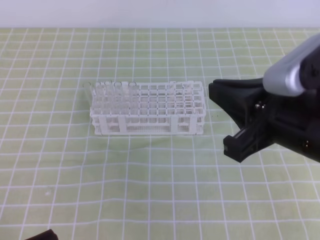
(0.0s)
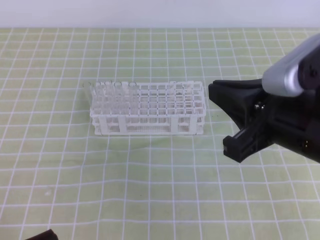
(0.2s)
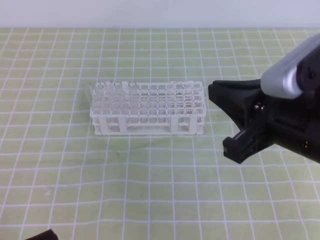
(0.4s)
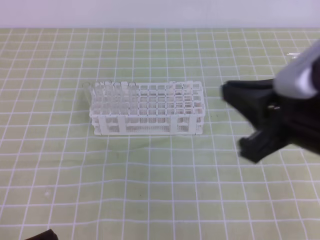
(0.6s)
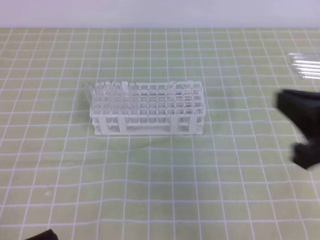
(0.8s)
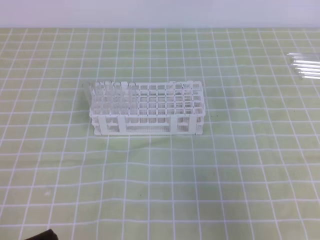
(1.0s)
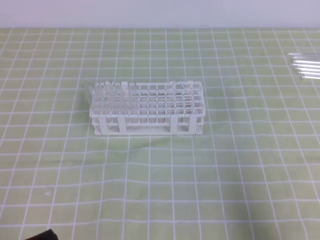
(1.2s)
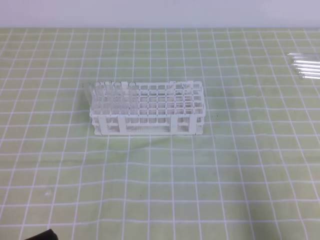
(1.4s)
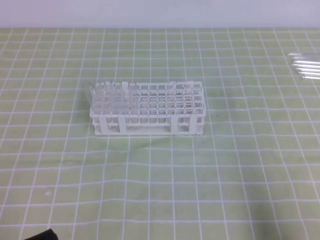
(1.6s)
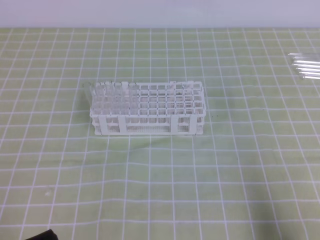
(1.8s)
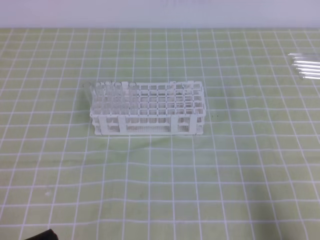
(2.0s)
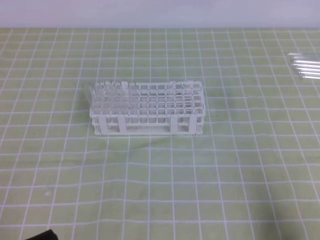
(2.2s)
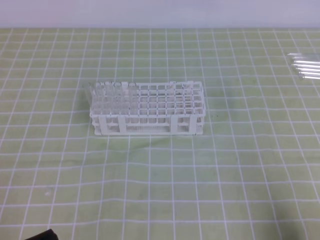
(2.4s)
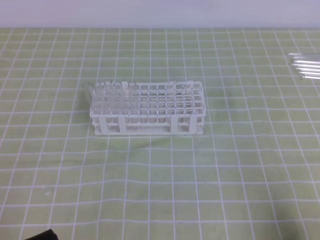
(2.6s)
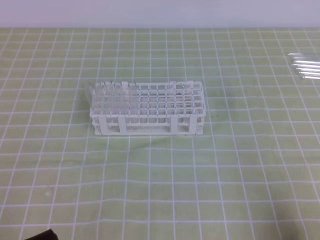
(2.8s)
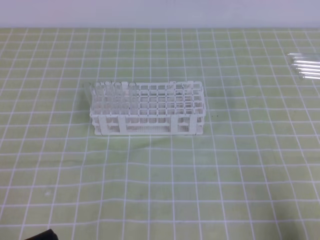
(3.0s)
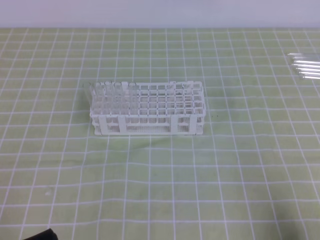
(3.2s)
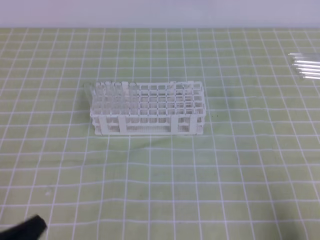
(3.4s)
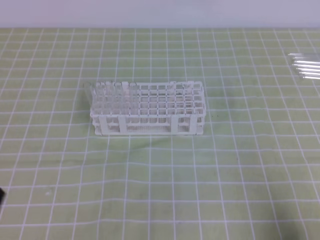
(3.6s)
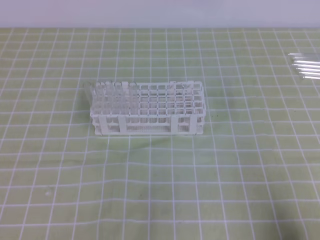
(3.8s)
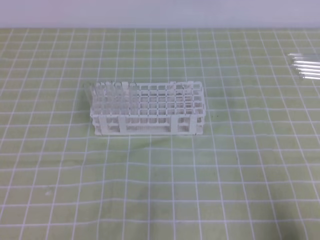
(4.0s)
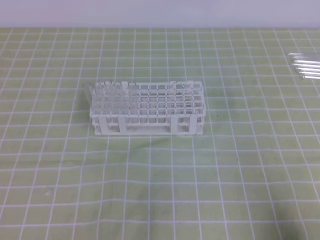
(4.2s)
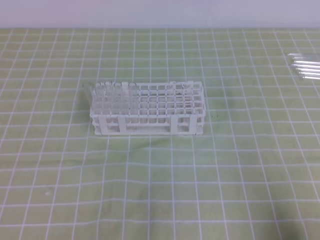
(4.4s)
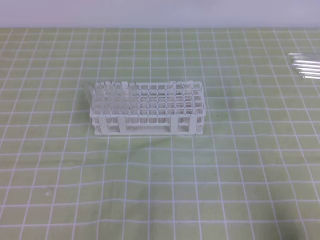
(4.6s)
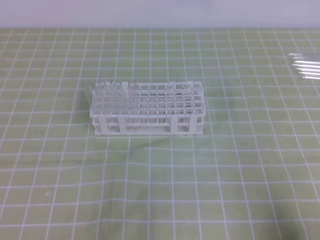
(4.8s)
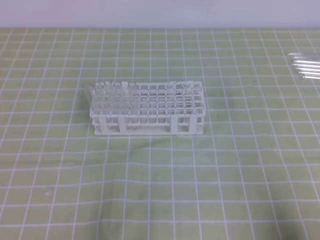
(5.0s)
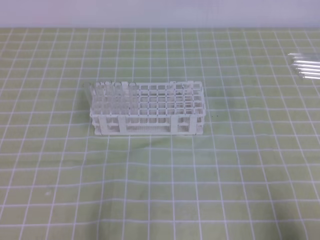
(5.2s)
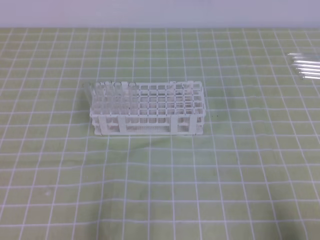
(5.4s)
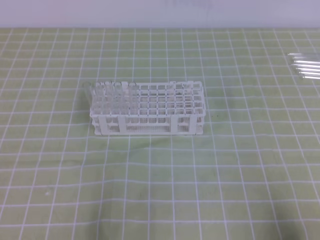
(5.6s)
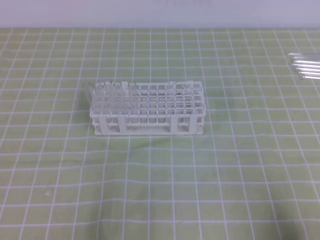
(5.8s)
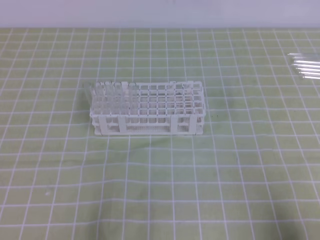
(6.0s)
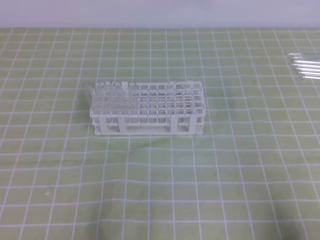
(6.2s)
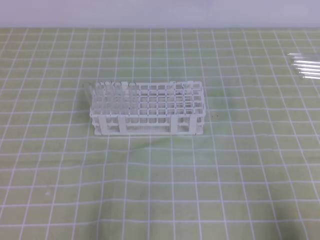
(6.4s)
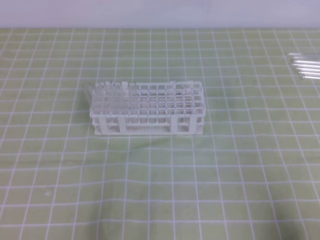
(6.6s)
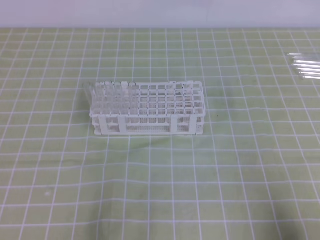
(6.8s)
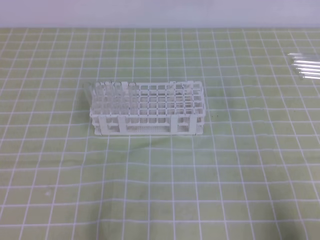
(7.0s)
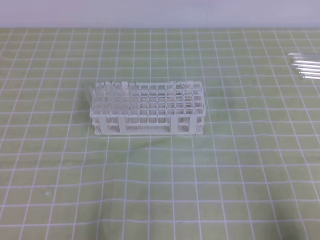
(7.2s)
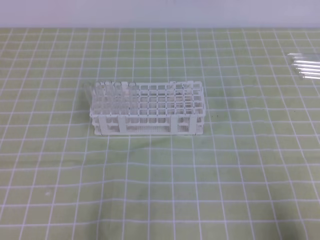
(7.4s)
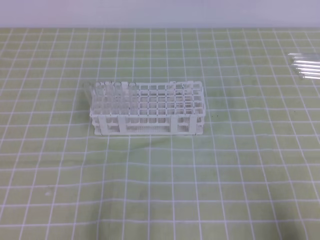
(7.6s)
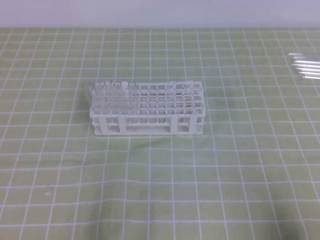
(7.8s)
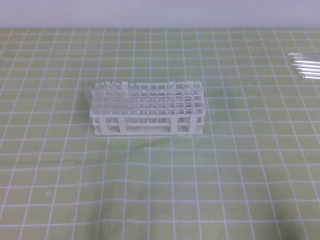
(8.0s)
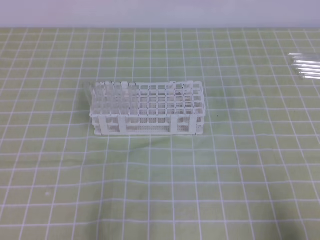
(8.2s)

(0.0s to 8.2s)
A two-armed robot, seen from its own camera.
0.0s - 1.6s: The right gripper heads to the right, downward and backward, covering some 25 cm.
6.6s - 8.2s: The two grippers keep their place.

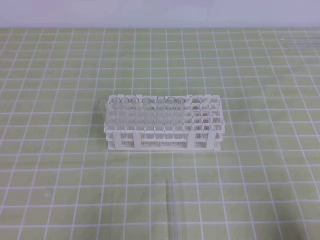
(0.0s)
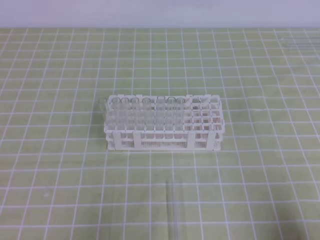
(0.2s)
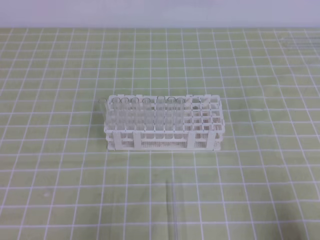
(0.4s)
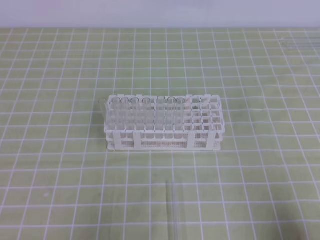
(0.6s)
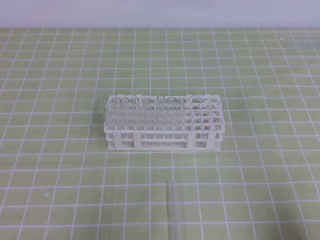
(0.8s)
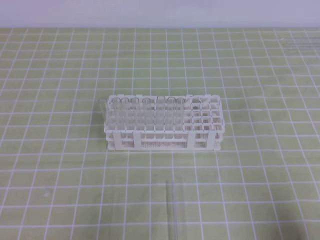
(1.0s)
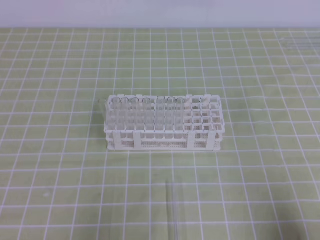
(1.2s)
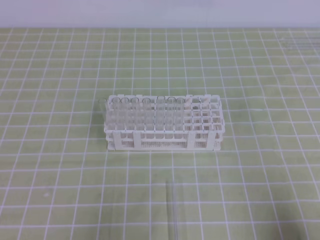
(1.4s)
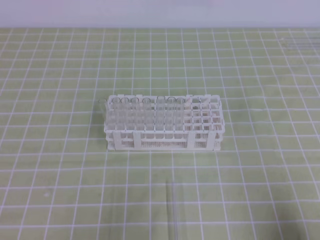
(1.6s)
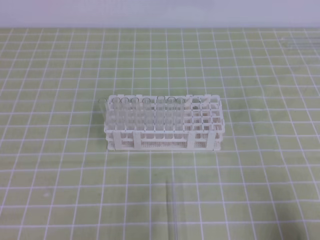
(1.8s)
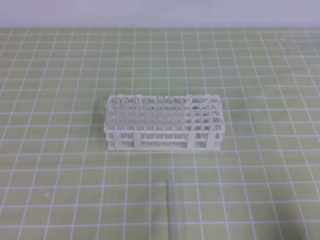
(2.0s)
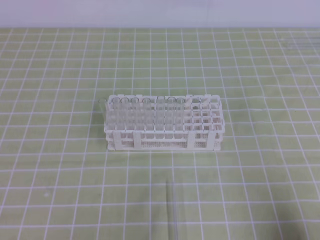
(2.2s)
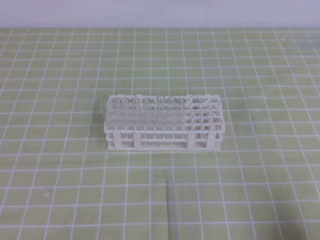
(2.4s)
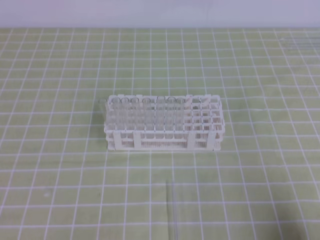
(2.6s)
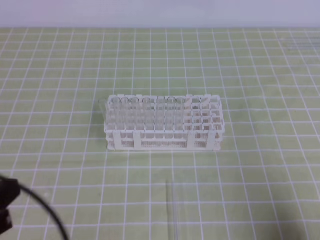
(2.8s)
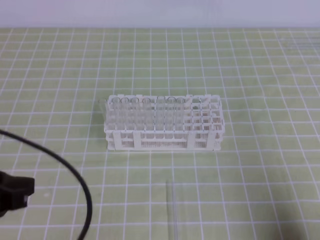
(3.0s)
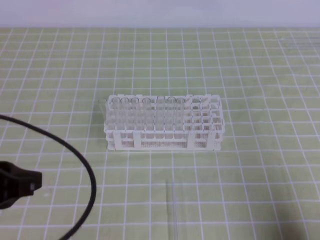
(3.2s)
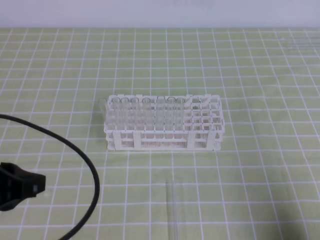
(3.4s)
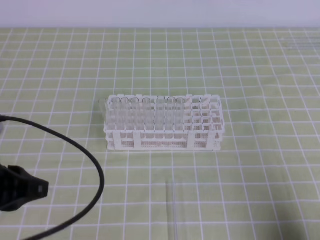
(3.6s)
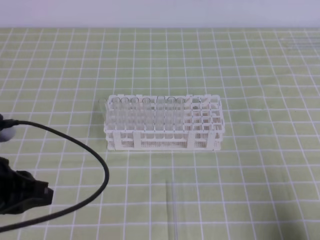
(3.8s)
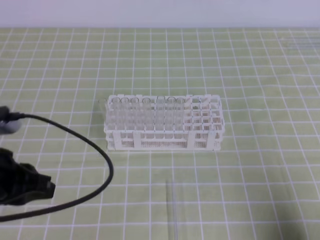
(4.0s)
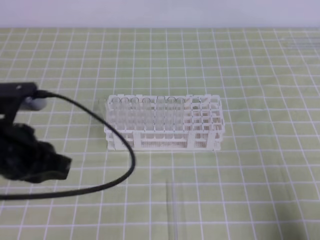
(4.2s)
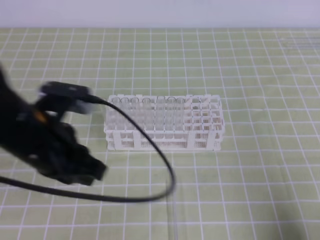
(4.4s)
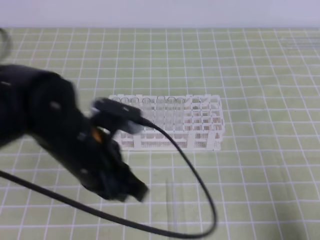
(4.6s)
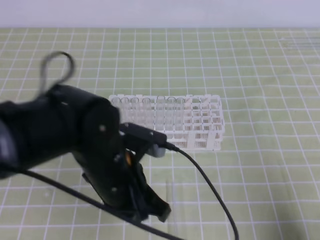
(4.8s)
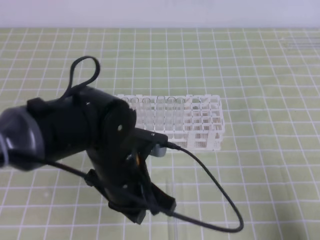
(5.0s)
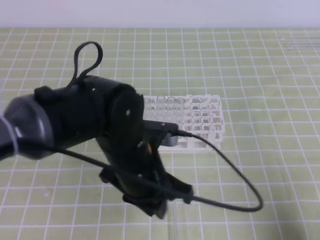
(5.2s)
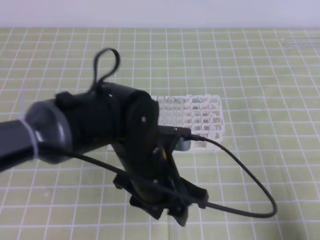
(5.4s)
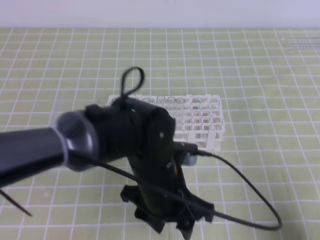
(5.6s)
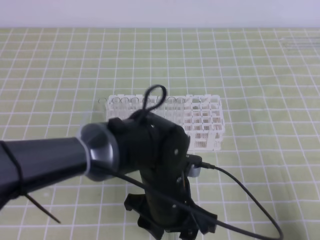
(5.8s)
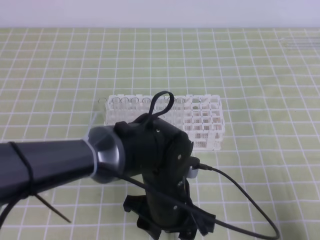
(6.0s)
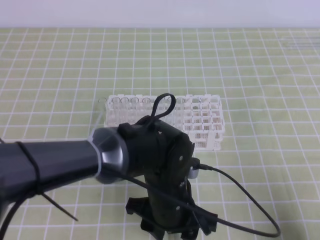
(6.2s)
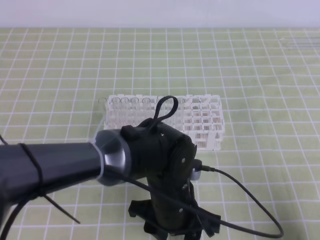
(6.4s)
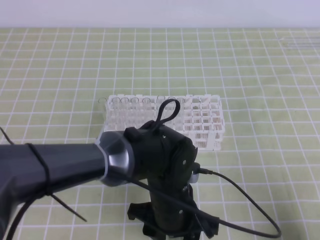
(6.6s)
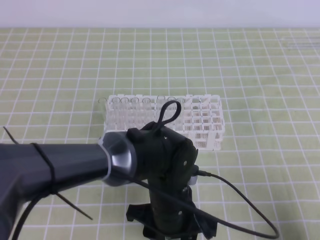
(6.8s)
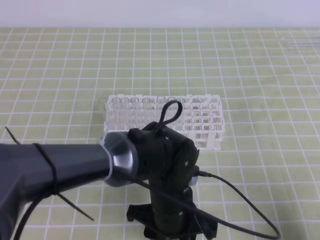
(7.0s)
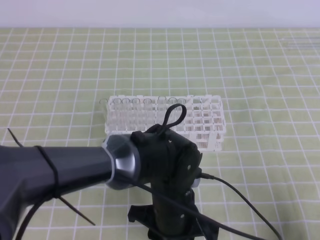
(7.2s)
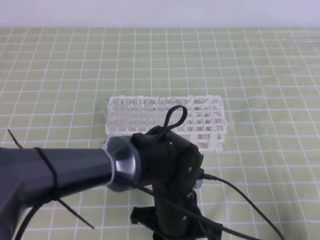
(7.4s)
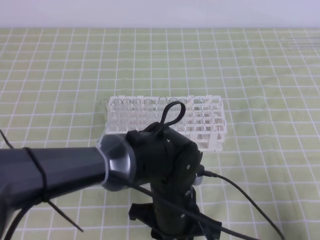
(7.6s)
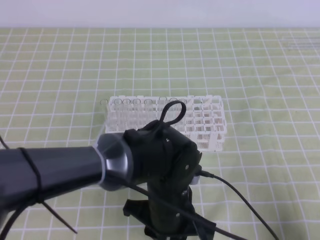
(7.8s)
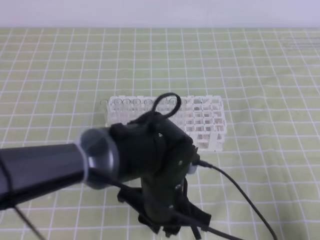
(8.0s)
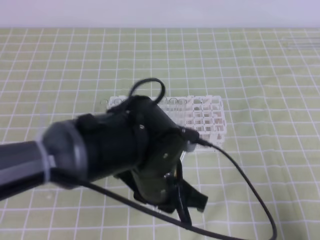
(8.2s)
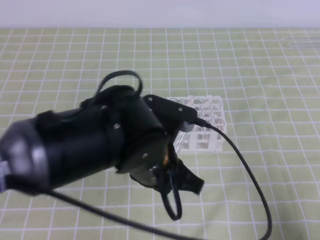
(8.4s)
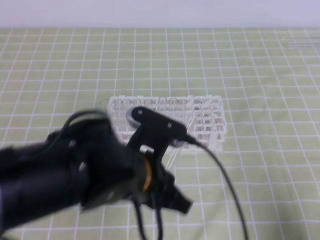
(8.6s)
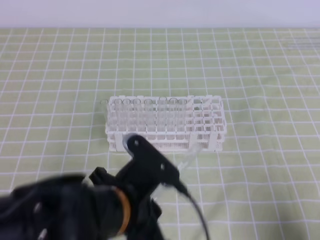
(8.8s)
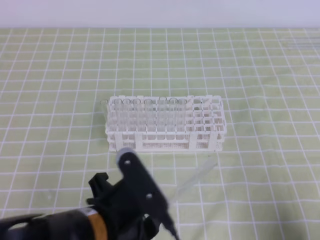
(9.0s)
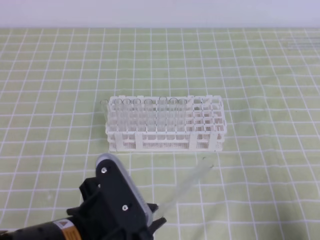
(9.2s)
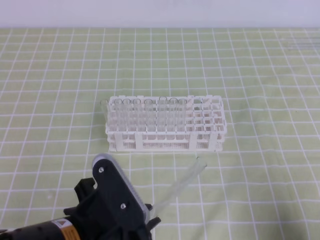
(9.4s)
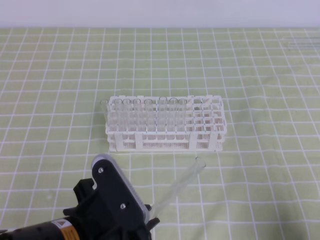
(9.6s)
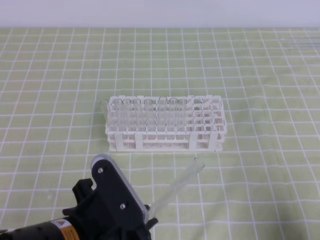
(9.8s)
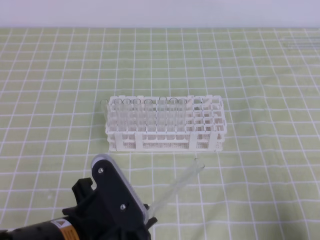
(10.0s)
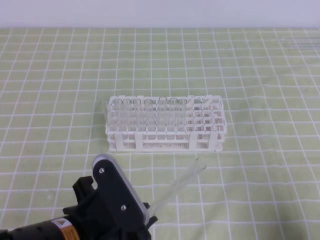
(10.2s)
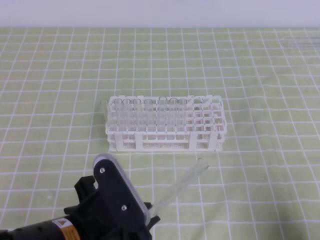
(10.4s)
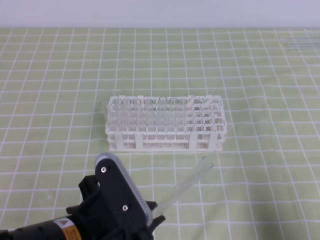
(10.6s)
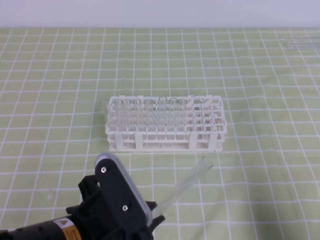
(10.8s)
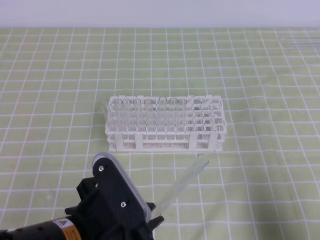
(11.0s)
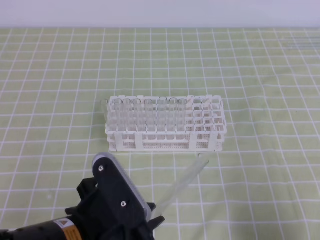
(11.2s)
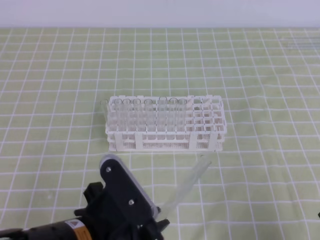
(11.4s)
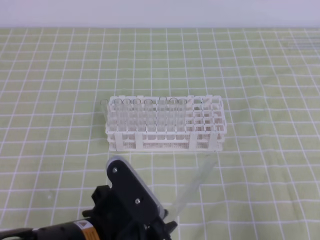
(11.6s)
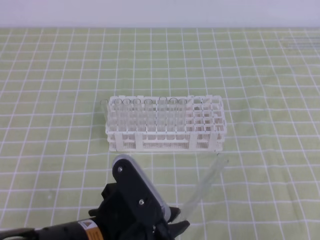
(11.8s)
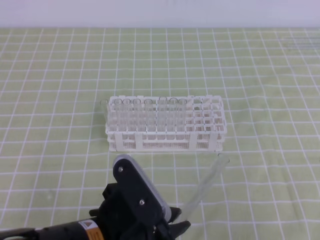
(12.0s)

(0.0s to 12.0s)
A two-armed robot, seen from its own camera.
1.6s - 3.0s: The left gripper shifts some 10 cm upward and forward.
3.0s - 4.4s: The left gripper moves forward and to the right, about 15 cm.
4.4s - 6.0s: The left gripper travels to the right and downward by roughly 20 cm, and opens.
6.0s - 7.6s: The left gripper closes its fingers.
7.6s - 9.0s: The left gripper goes approximately 15 cm to the left, upward and backward.
9.0s - 10.4s: The grippers stay close to where they were, moving slightly.
10.4s - 12.0s: The right gripper is displaced upward and to the left by some 10 cm.

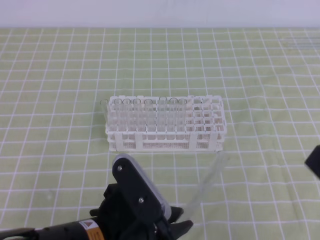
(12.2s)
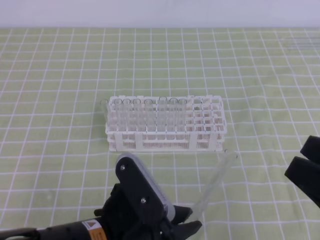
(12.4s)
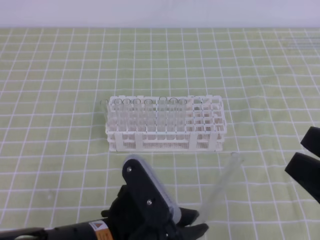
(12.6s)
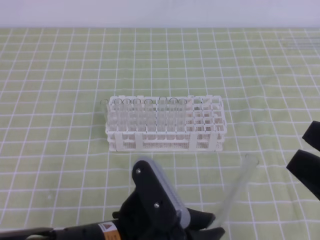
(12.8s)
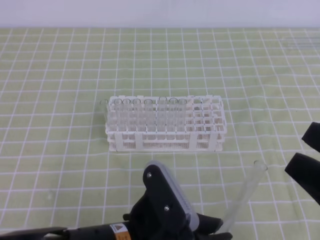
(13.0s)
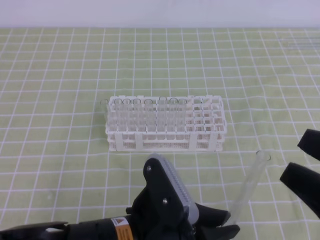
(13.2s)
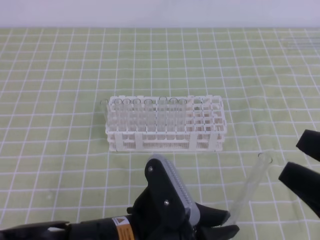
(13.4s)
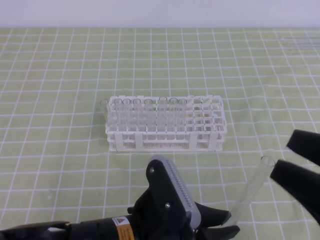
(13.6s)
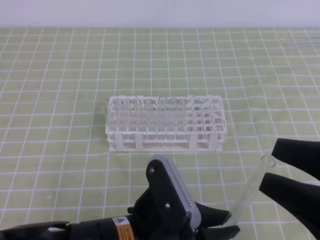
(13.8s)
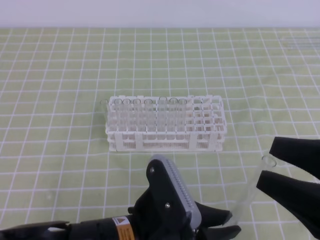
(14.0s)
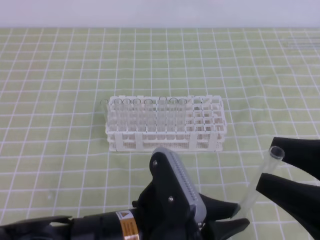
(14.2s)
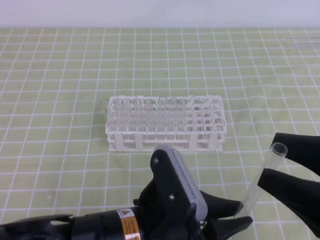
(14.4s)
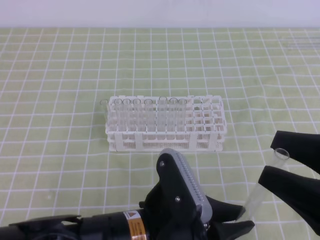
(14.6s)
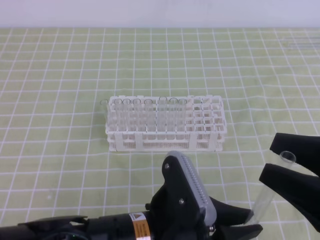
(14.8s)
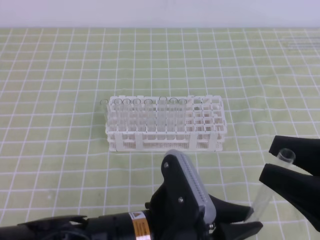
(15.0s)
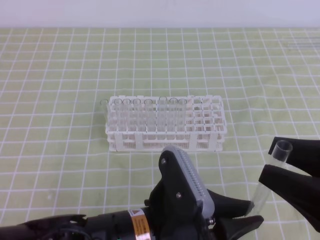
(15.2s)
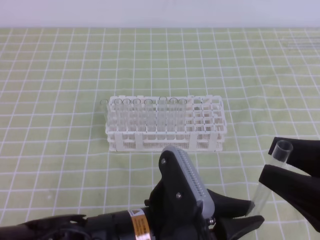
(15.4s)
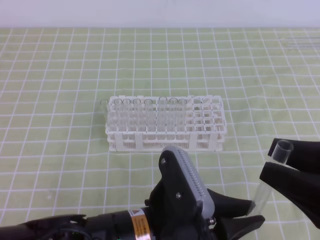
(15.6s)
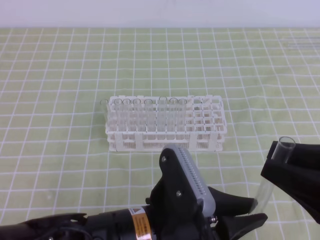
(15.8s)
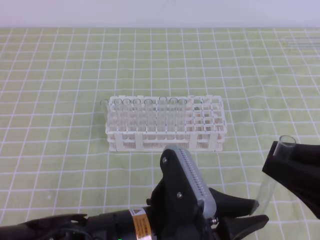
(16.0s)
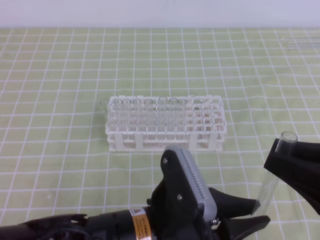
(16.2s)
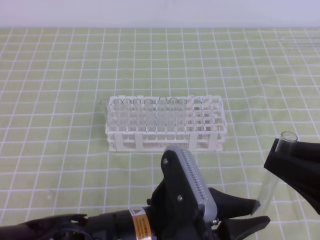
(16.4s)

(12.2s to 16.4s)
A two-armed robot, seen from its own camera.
12.2s - 13.6s: The right gripper opens.
13.6s - 15.0s: The grippers make only small movements.
15.0s - 16.4s: The right gripper closes its fingers.
